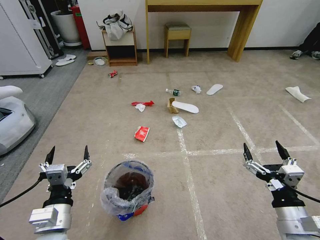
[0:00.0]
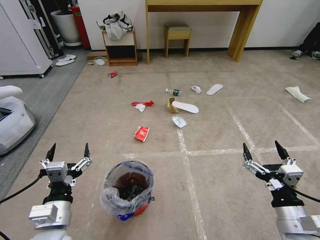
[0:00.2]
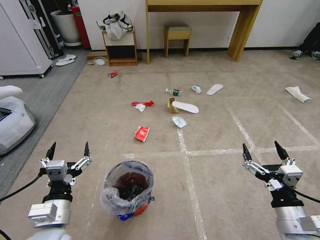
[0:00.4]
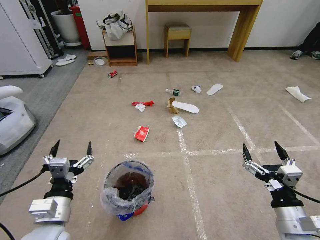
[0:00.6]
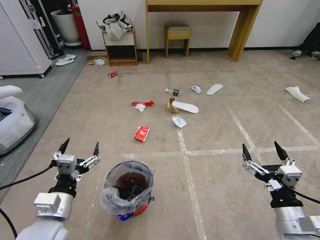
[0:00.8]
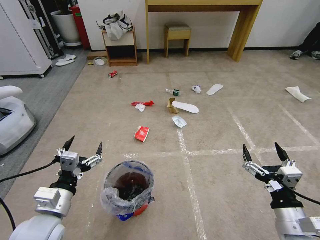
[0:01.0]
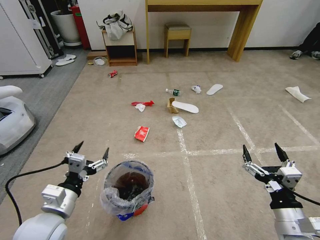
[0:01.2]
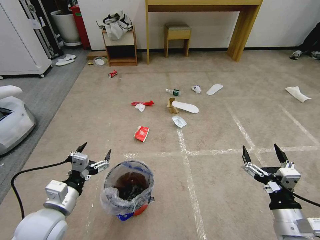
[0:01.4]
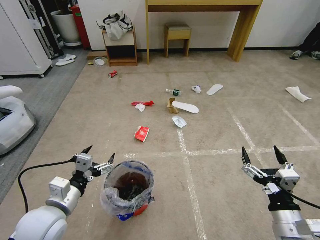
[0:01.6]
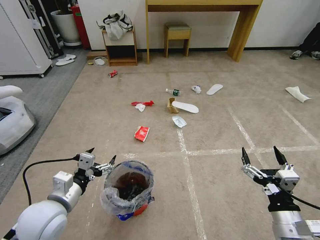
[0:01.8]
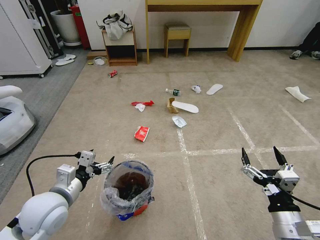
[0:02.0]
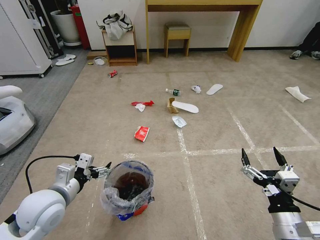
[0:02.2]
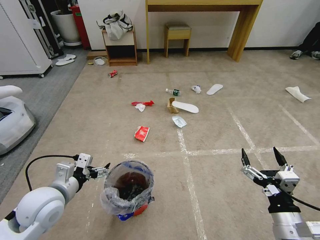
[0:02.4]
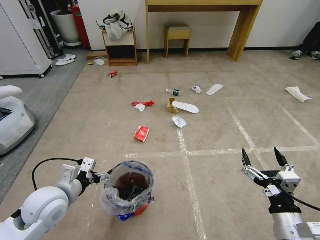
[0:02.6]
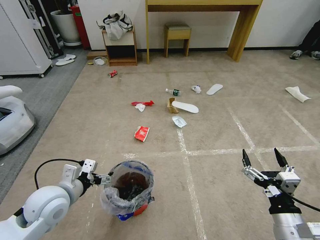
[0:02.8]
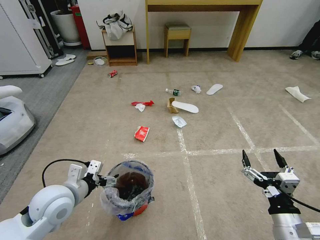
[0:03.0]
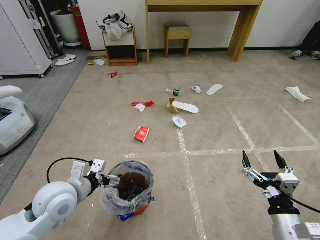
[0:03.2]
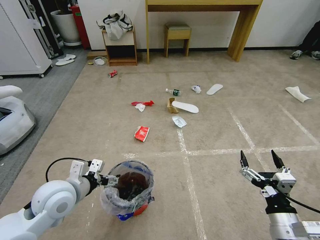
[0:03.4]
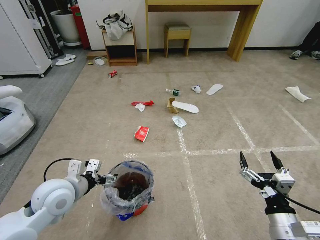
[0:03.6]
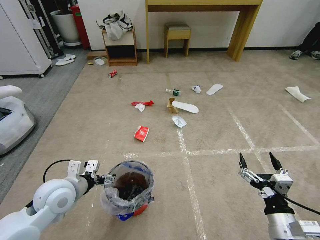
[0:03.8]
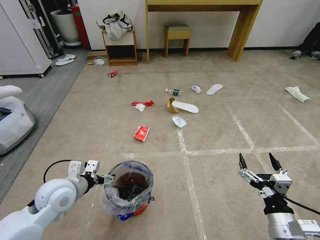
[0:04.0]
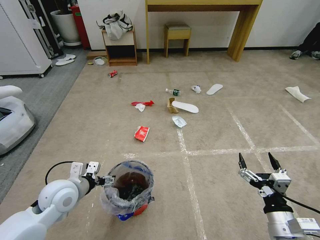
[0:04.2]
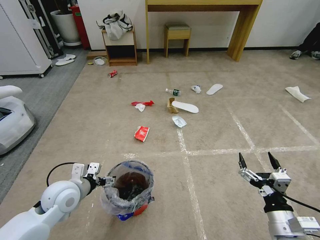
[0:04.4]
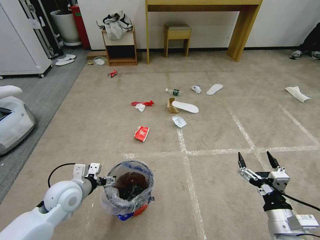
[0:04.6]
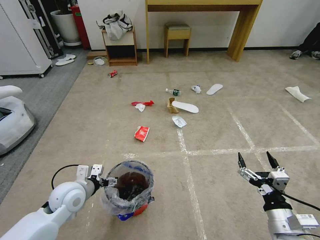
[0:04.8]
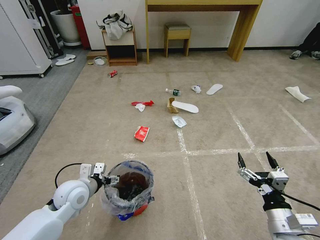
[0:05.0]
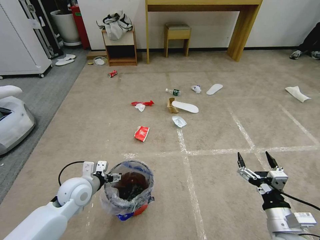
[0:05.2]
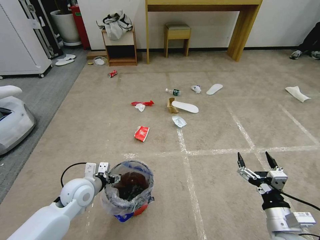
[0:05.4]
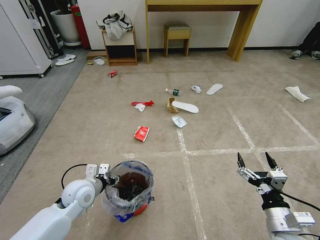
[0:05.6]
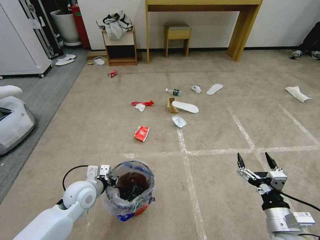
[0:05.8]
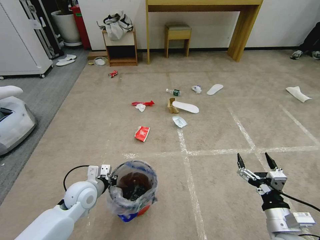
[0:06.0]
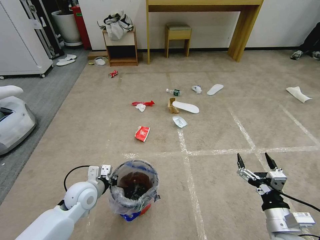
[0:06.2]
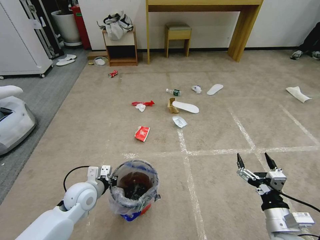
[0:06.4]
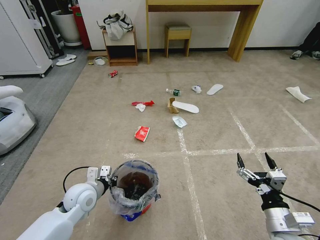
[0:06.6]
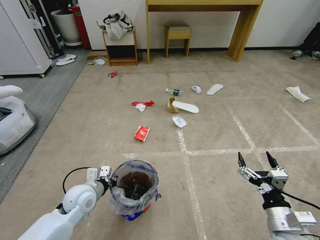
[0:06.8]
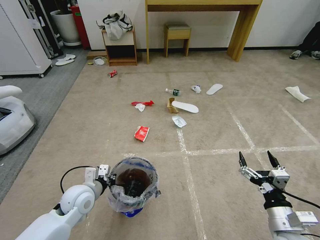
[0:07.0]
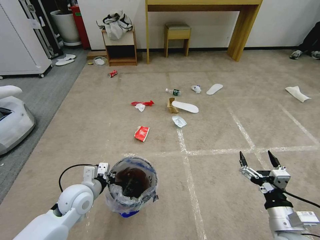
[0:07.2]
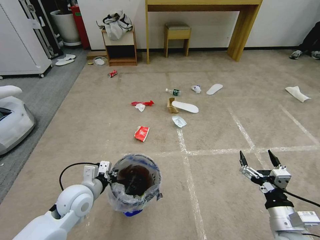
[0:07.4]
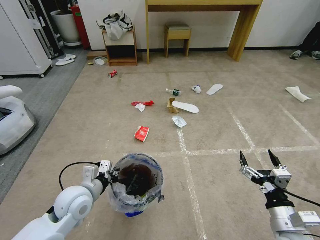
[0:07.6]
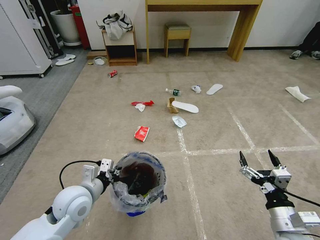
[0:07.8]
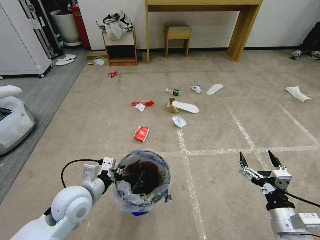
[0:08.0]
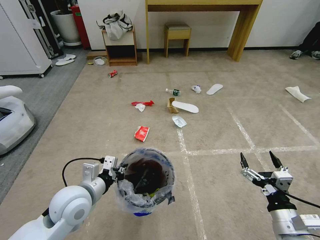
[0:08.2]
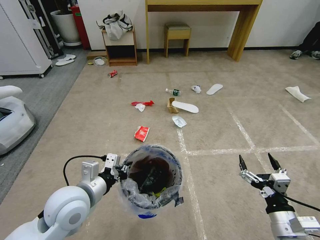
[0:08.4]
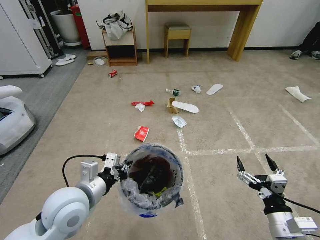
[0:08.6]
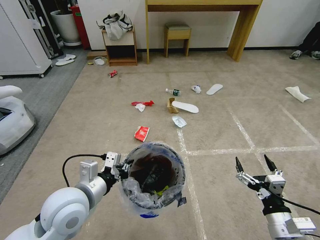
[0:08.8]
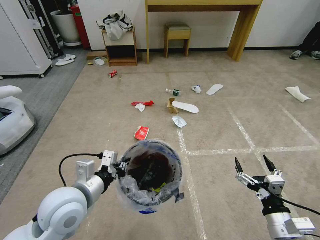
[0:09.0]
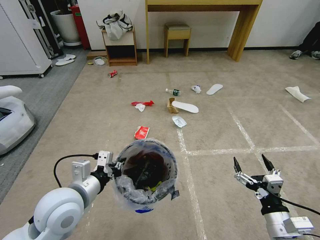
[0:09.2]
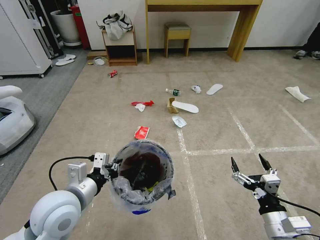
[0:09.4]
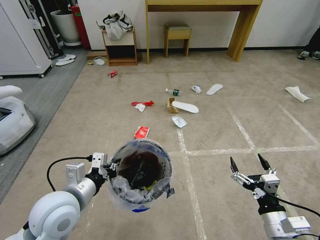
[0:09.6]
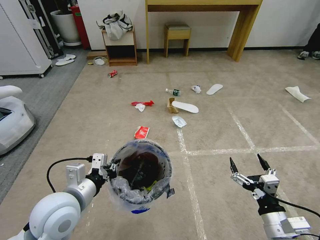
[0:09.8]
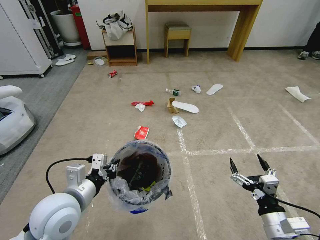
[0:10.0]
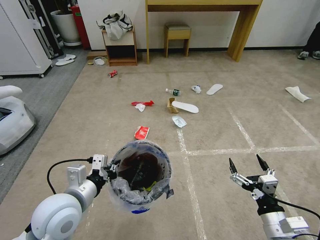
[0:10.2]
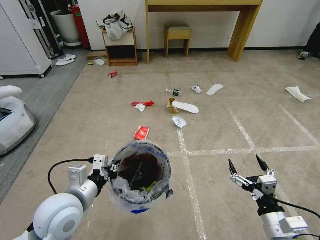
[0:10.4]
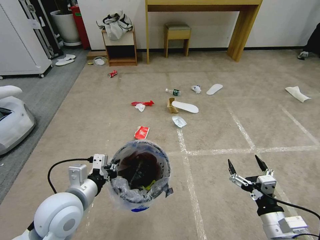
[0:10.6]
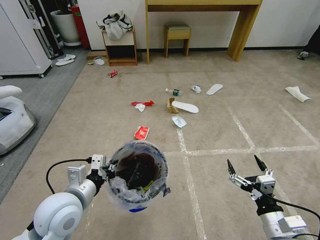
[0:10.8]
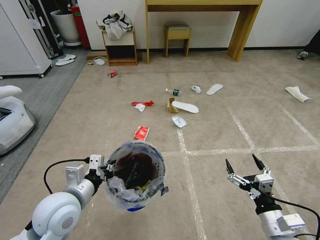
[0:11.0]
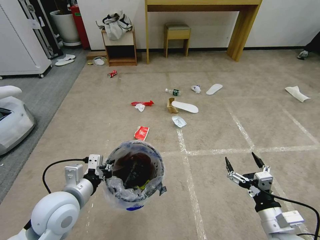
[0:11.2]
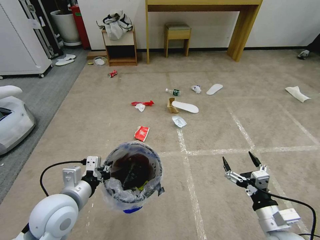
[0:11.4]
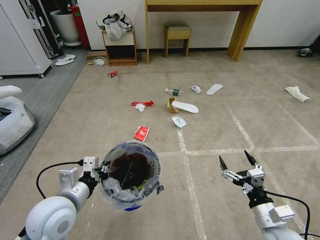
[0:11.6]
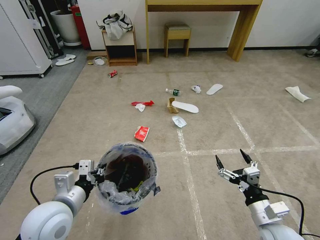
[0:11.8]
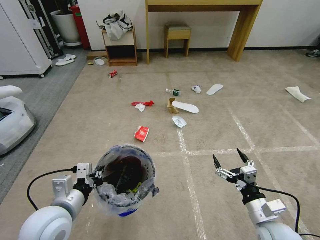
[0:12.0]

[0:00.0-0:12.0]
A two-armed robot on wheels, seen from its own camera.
Task of the whole recording: Pick up the trash bin and place the garbage on the floor into it.
0:01.6 to 0:03.0: The left gripper moves some 5 cm.
0:03.0 to 0:04.4: The left gripper shifts by about 5 cm.
0:04.4 to 0:06.0: The left gripper is displaced downward by some 5 cm, and closes its fingers.
0:06.0 to 0:07.6: The left gripper shifts by some 5 cm.
0:07.6 to 0:09.0: The left gripper goes about 10 cm upward.
0:09.0 to 0:12.0: The grippers move only a little.

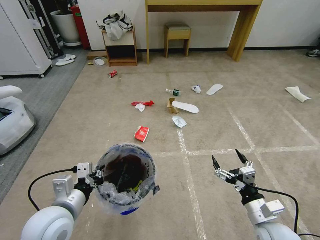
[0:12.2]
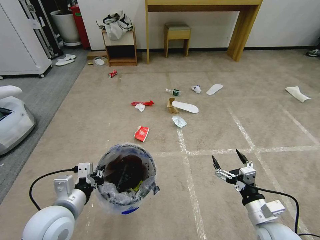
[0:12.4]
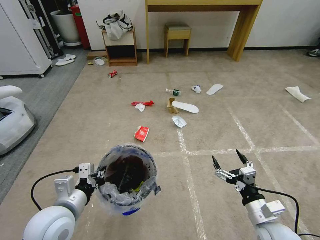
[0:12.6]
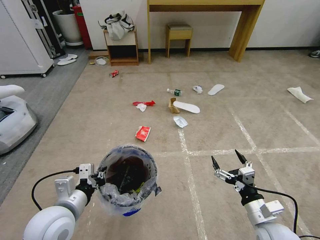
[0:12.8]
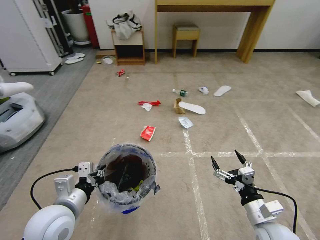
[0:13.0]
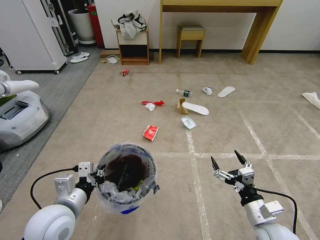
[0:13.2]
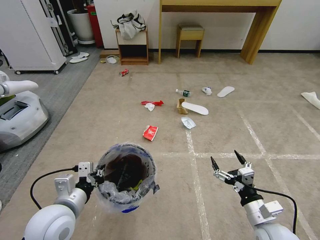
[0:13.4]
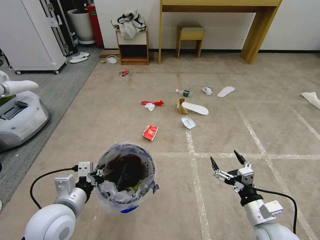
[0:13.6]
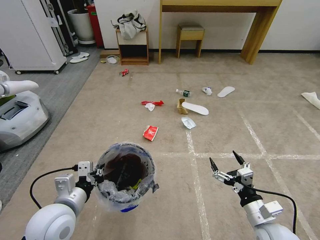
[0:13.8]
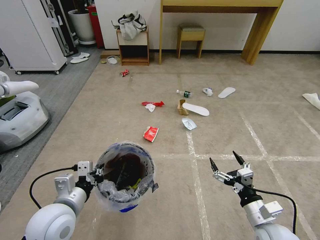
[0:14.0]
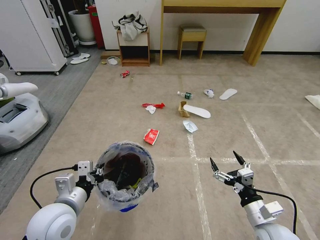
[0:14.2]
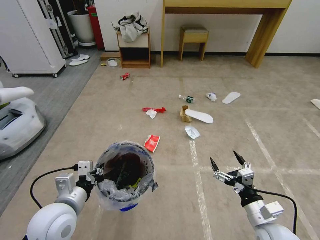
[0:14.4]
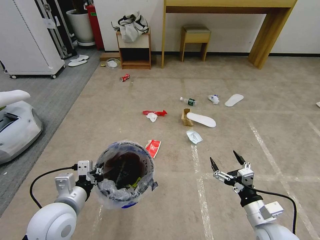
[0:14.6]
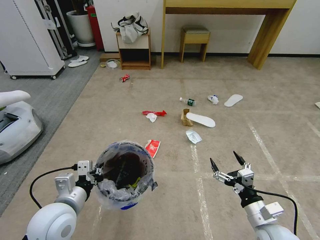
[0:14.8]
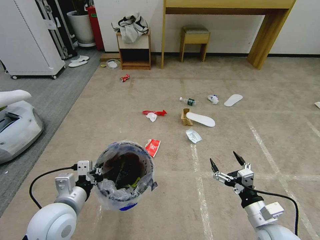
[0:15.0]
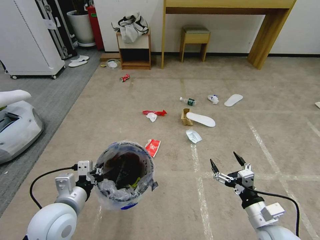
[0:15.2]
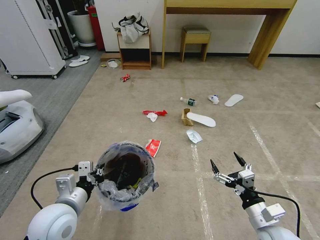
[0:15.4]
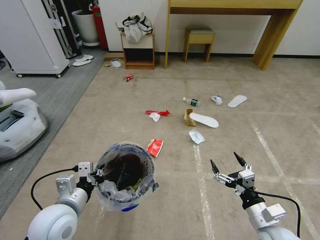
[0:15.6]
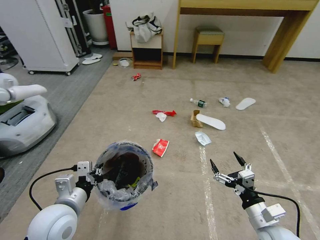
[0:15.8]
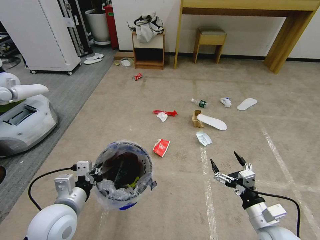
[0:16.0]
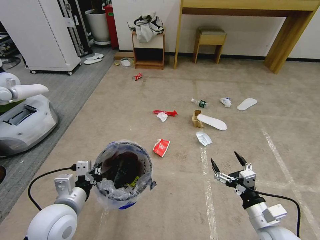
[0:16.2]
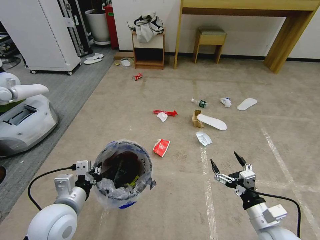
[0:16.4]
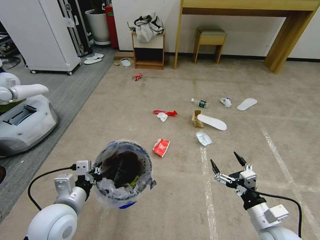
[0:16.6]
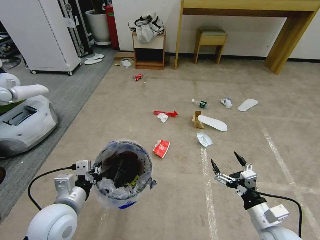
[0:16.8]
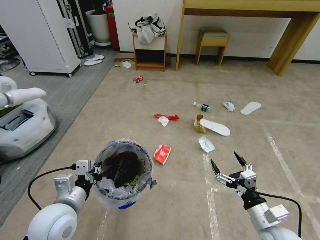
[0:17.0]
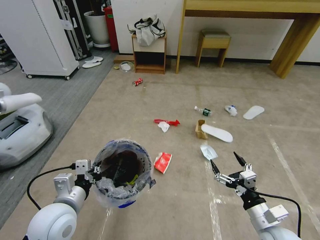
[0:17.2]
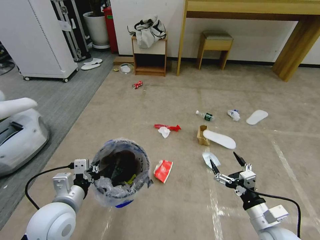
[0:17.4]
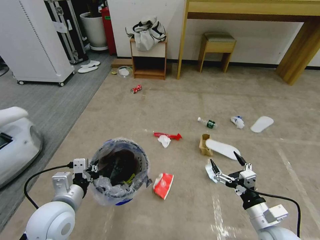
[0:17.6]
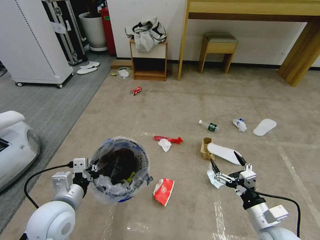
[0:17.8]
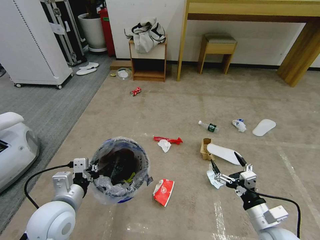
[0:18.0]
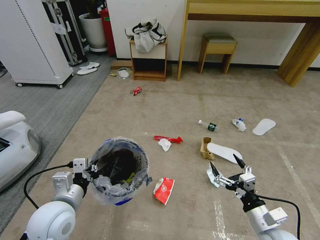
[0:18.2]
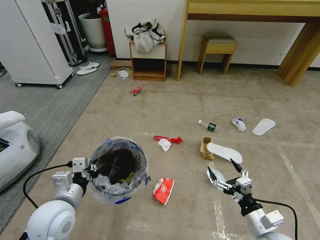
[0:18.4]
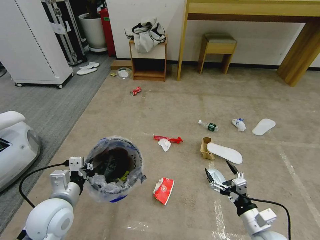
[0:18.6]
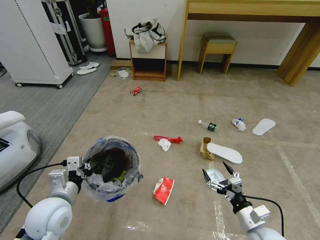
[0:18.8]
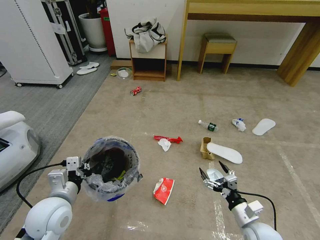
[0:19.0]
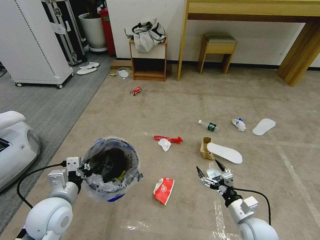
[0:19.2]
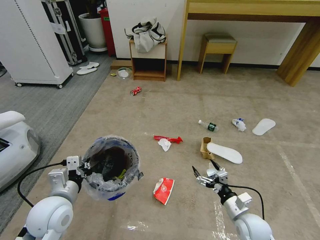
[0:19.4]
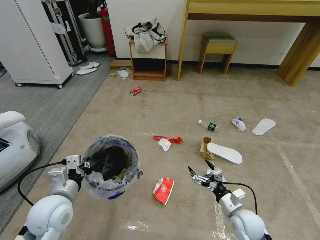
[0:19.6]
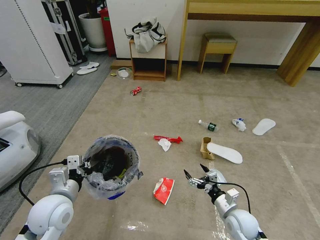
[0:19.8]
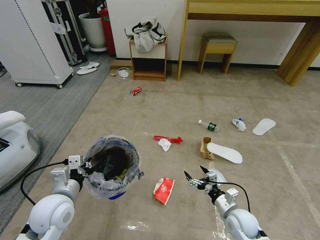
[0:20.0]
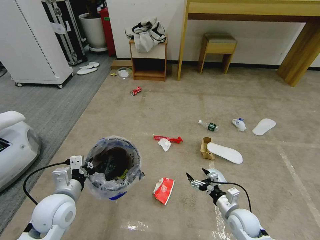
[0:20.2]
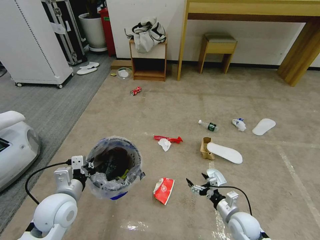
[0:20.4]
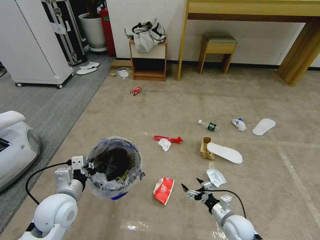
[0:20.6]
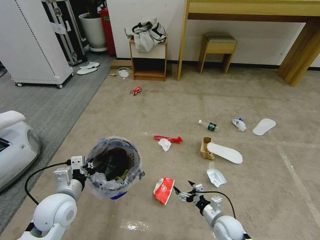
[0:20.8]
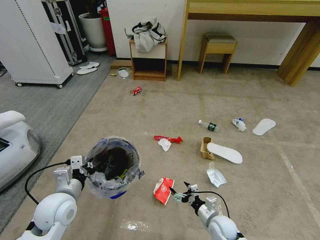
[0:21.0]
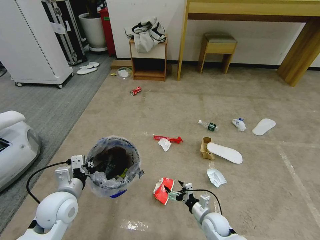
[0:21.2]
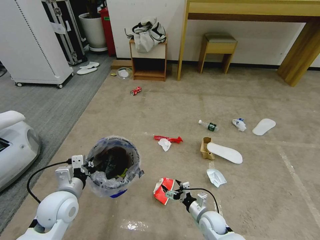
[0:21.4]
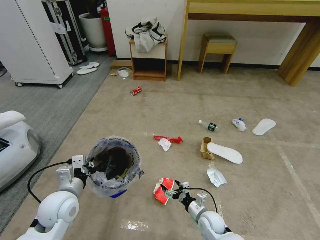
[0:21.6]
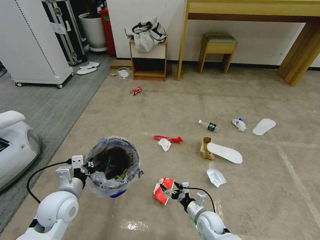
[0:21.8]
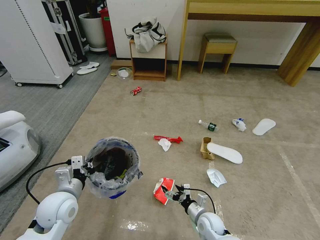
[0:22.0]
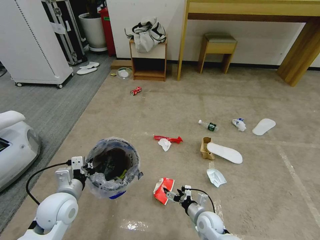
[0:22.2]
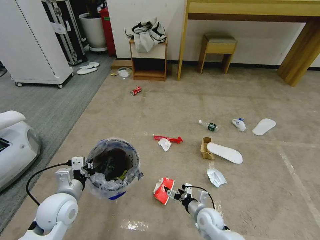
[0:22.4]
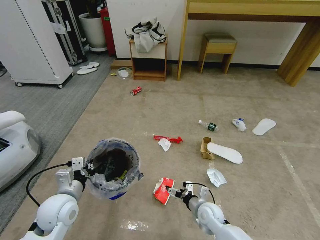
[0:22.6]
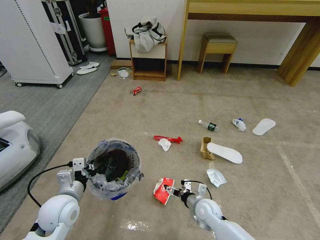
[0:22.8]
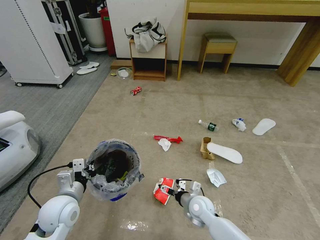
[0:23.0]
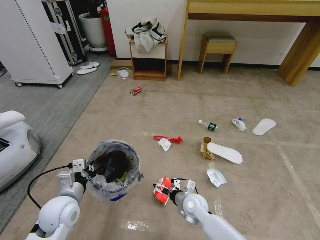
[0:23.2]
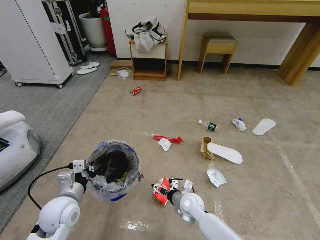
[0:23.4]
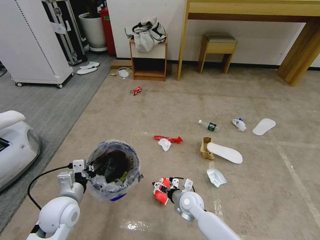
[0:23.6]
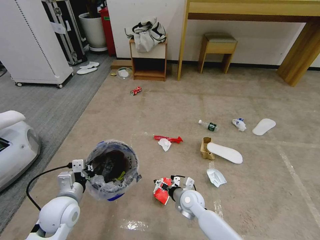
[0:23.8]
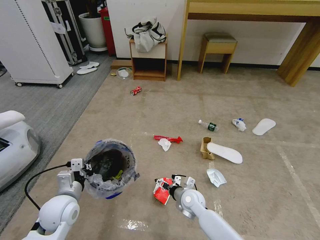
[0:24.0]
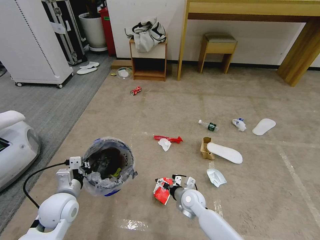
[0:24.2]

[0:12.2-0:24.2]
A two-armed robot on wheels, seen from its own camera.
Task of the whole recording: Pick up the trash bin and place the garbage on the floor into it.
0:18.2 to 0:19.8: The right gripper goes about 10 cm downward and forward.
0:19.8 to 0:21.2: The right gripper moves downward and to the left, about 10 cm.
0:21.2 to 0:22.6: The right gripper shifts by some 5 cm.
0:22.6 to 0:24.2: The right gripper heads to the left, covering about 5 cm.
